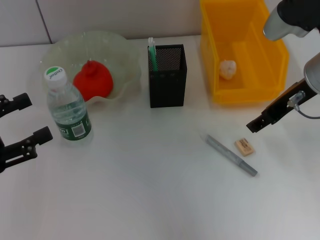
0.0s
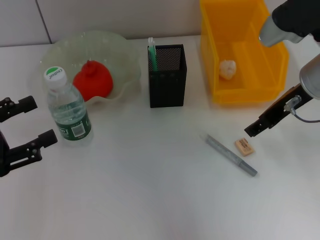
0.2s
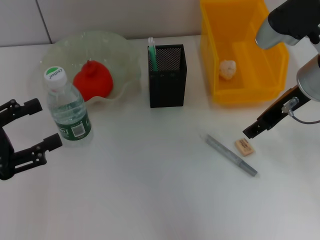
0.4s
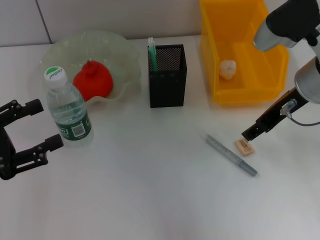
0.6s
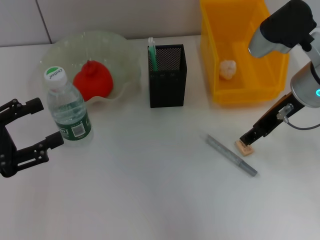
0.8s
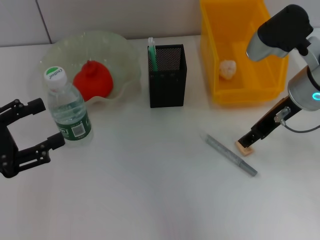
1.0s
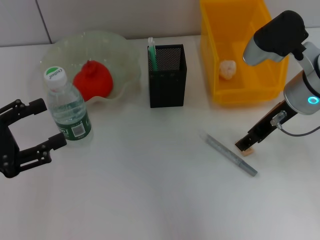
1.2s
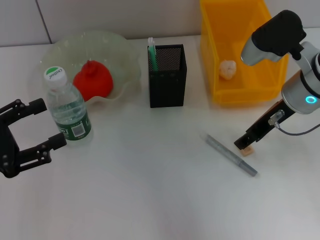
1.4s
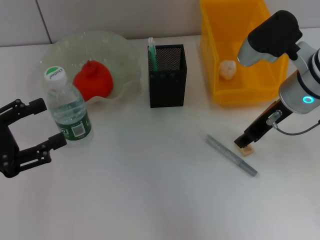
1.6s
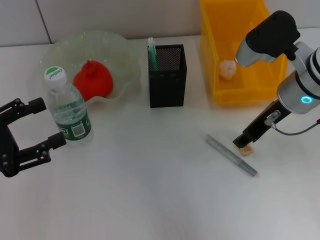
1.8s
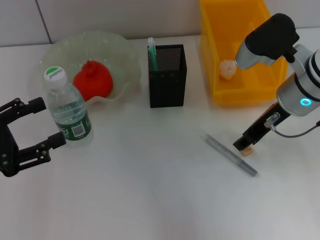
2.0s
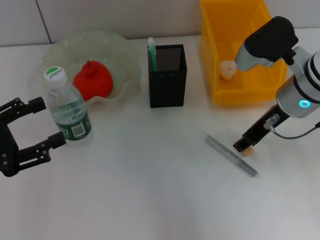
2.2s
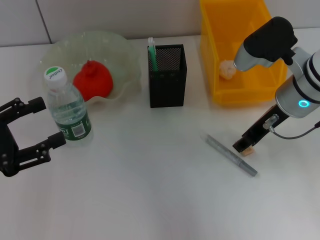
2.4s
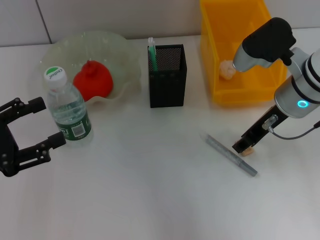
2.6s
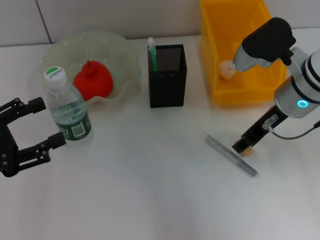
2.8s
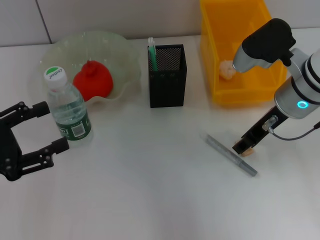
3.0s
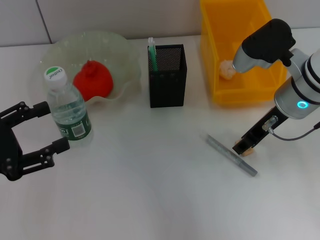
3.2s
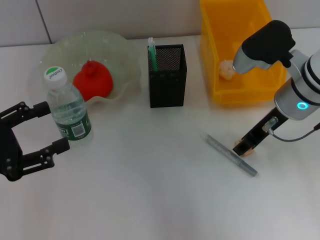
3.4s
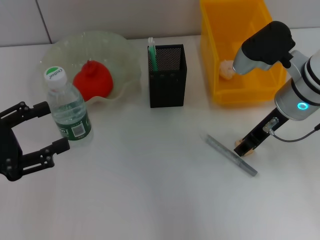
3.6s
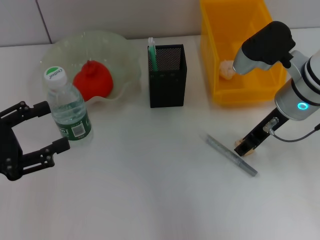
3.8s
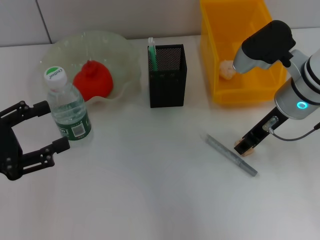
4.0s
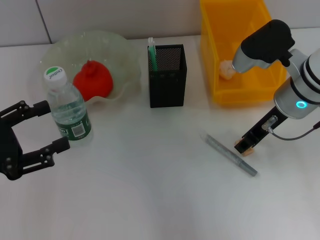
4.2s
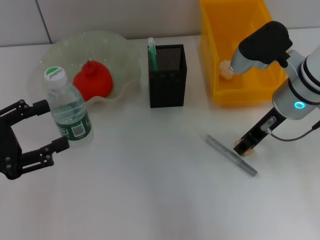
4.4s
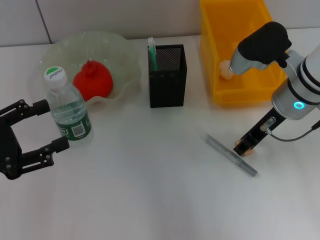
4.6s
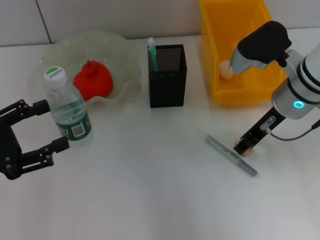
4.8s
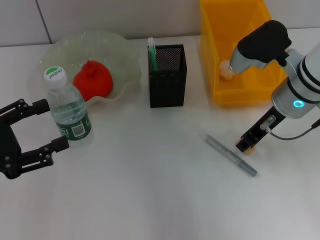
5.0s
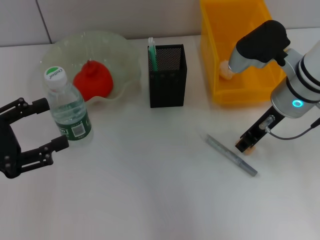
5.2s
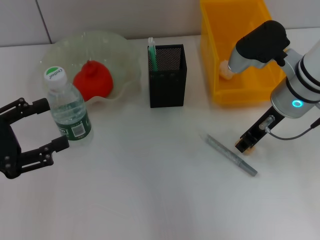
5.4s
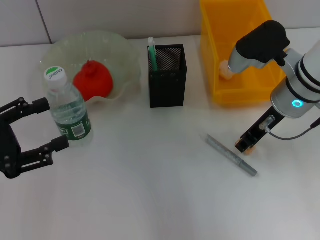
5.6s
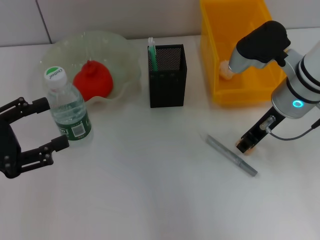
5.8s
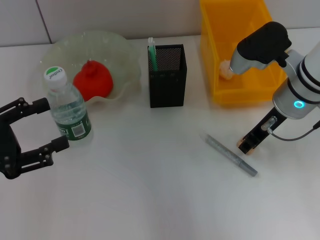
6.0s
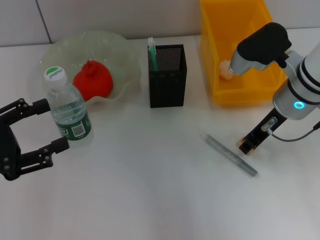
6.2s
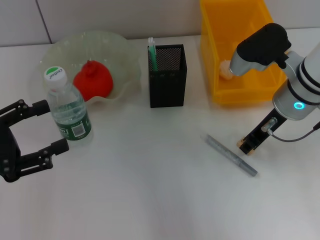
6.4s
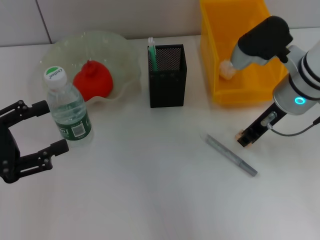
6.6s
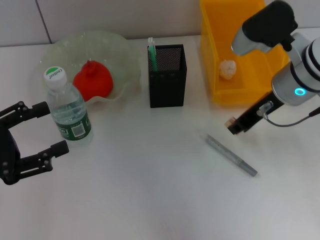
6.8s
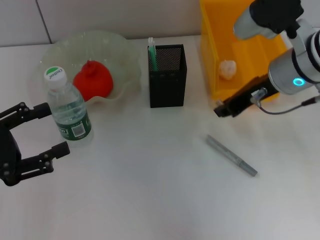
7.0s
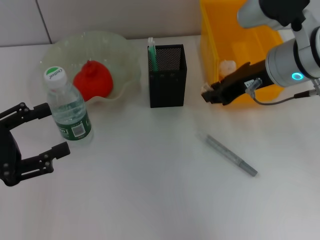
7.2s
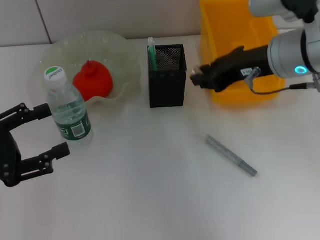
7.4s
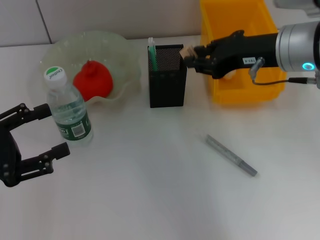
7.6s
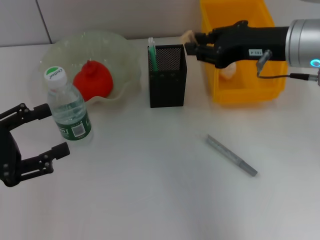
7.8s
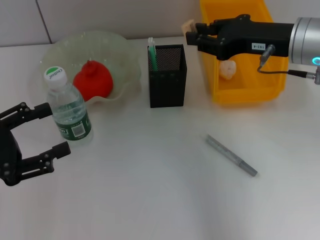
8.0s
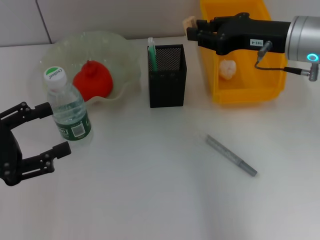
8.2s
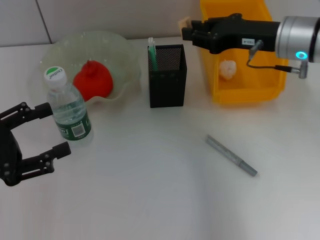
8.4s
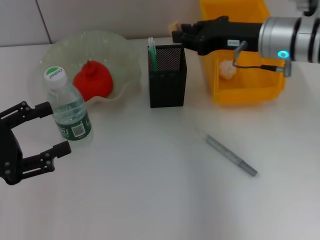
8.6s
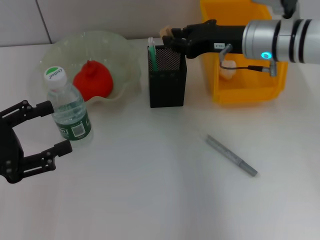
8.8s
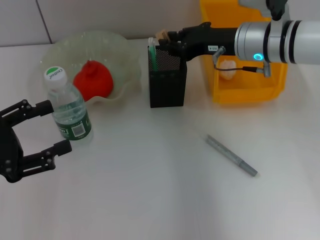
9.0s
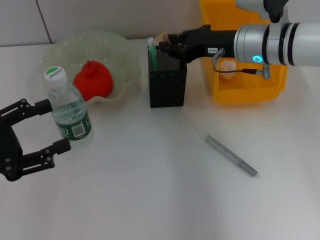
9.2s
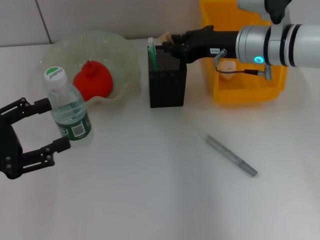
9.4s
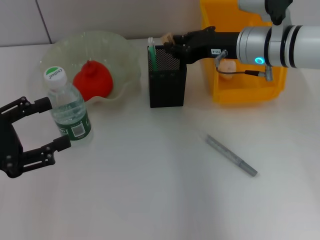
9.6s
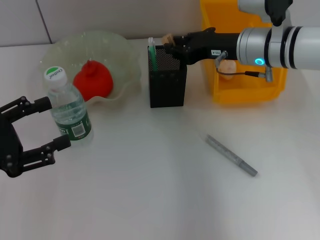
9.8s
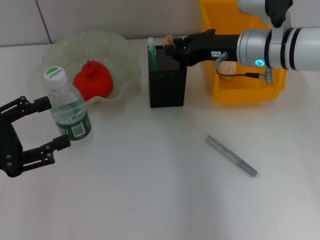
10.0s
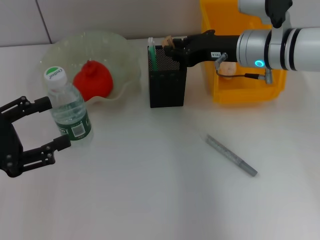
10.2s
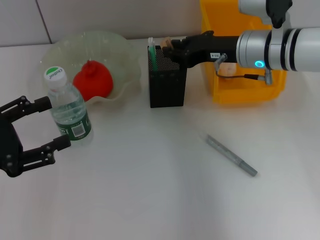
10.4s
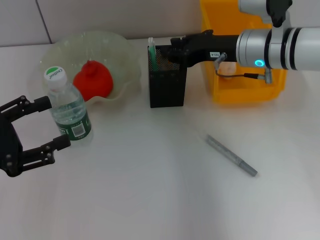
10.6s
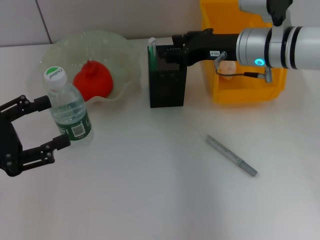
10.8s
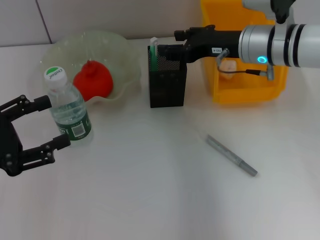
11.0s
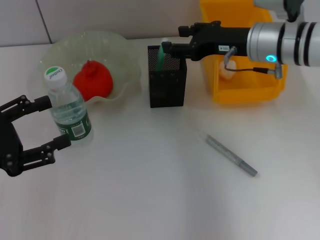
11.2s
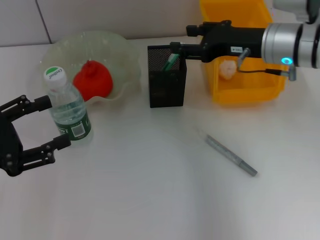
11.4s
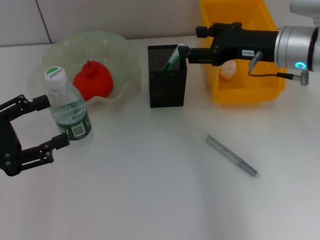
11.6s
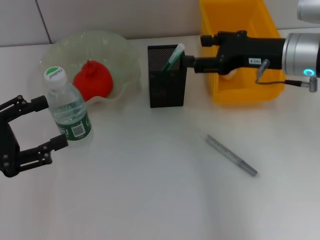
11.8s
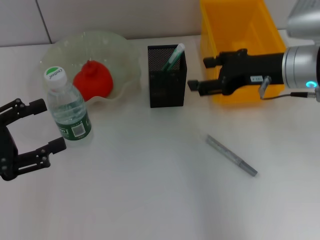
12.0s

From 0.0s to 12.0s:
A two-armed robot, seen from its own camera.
Step, from 0.0s to 6.2s: Grab the eraser with the right hand.
Step, from 6.4s to 10.8s: Put the eraser into the pen holder with the right hand.
From 0.0s to 1.6s: The grippers move only a little.
From 1.6s to 3.0s: Both grippers stay about where they are.
From 3.0s to 6.0s: Both grippers stay about where they are.
From 6.0s to 7.6s: The right gripper shifts roughly 5 cm upward.
From 7.6s to 9.0s: The right gripper is displaced forward and downward by roughly 10 cm.
From 9.0s to 10.4s: Both grippers stay put.
From 10.4s to 12.0s: The right gripper goes some 5 cm backward, and opens its fingers.

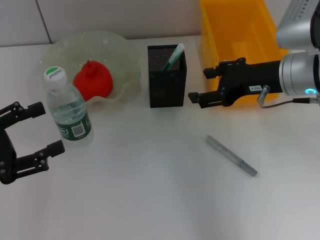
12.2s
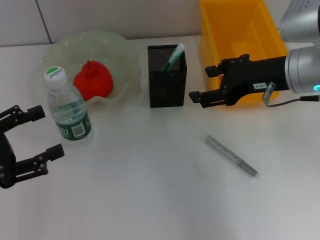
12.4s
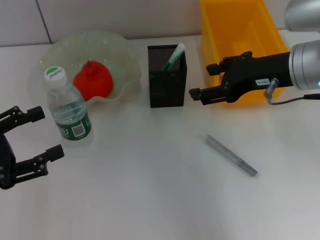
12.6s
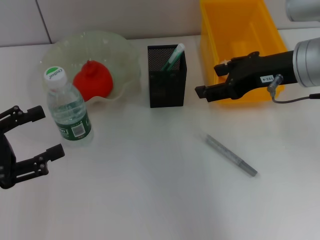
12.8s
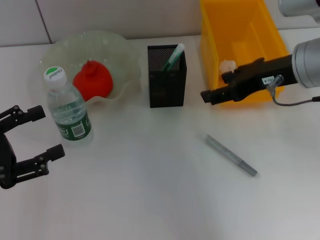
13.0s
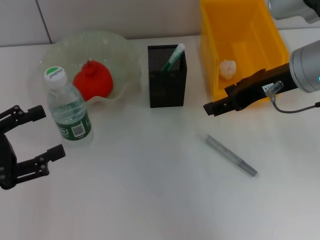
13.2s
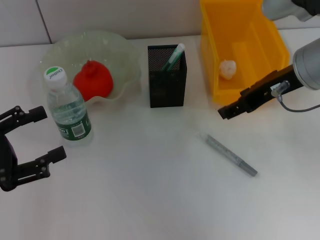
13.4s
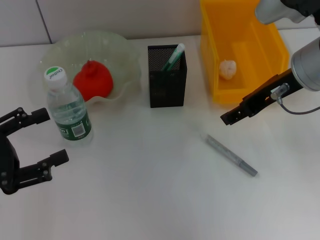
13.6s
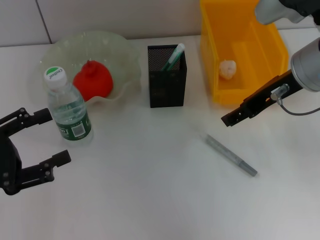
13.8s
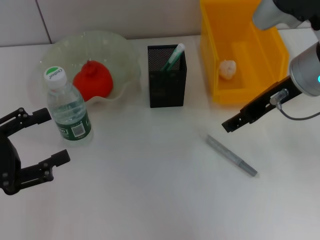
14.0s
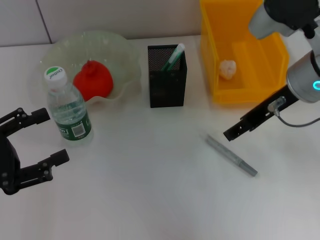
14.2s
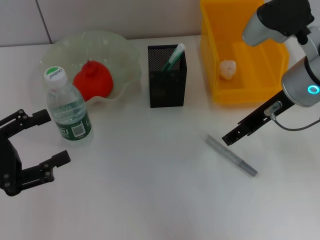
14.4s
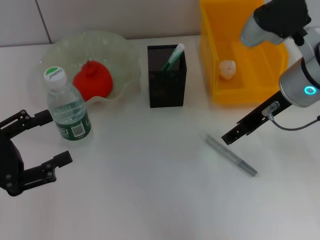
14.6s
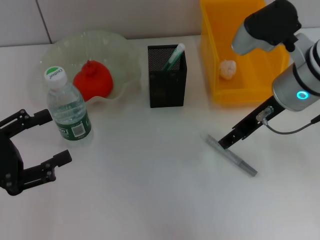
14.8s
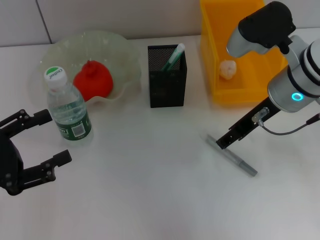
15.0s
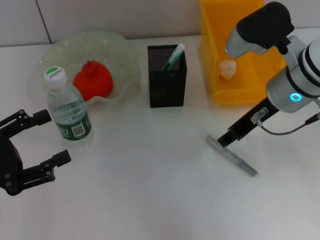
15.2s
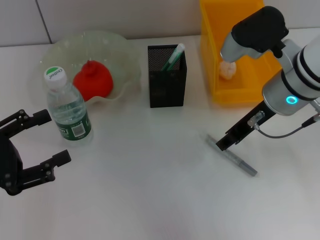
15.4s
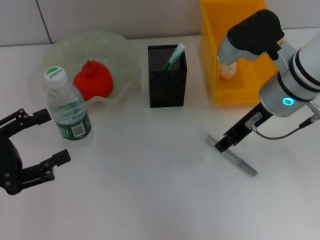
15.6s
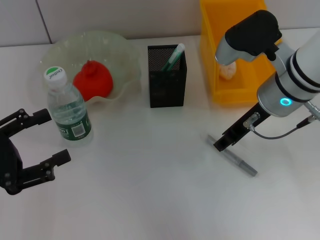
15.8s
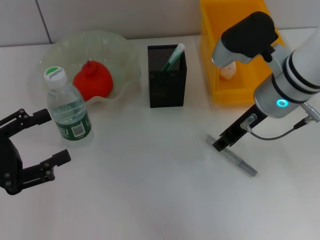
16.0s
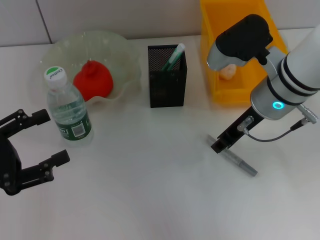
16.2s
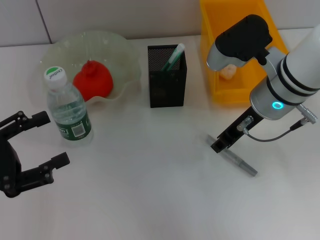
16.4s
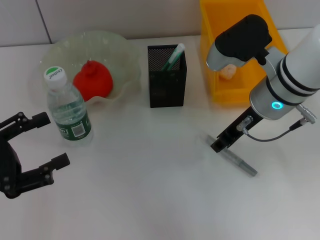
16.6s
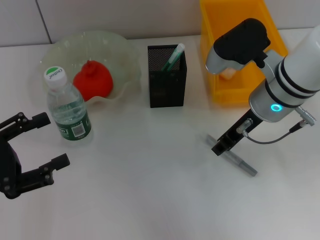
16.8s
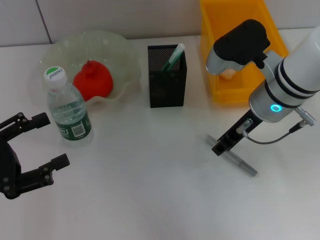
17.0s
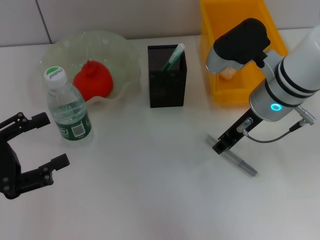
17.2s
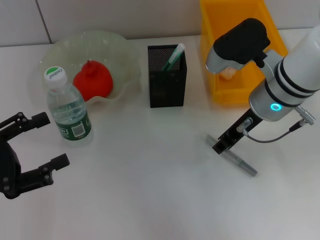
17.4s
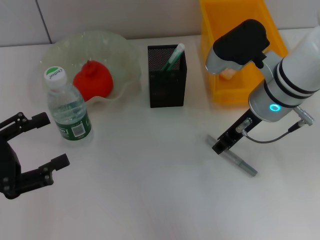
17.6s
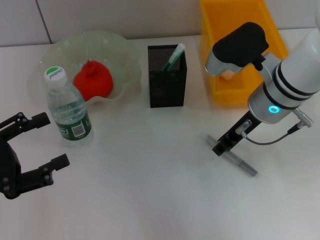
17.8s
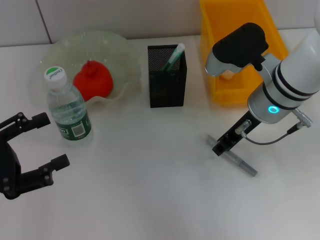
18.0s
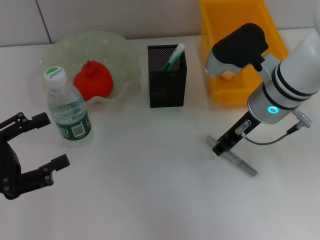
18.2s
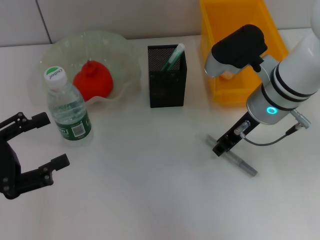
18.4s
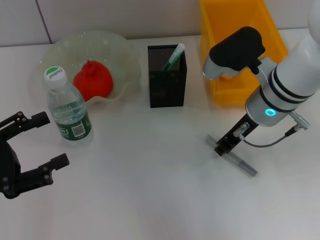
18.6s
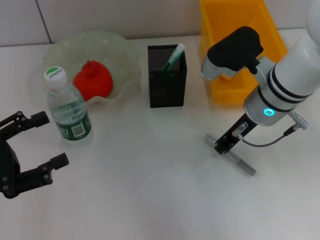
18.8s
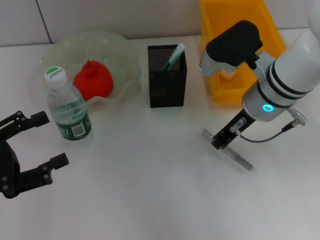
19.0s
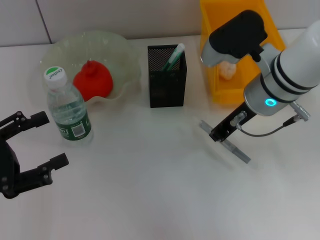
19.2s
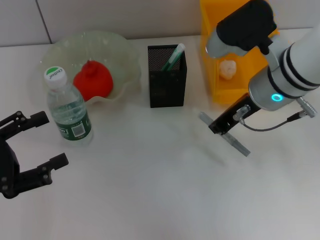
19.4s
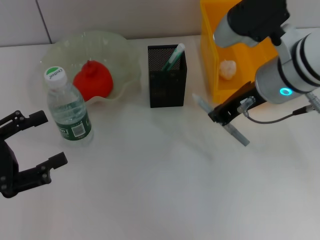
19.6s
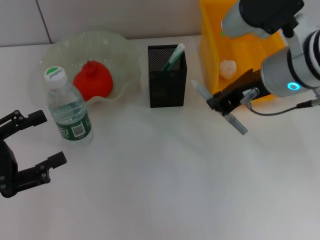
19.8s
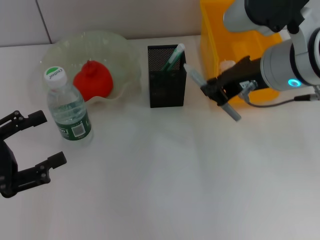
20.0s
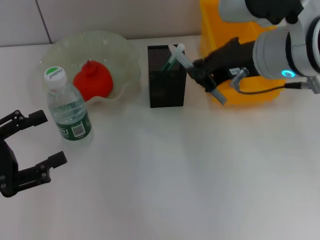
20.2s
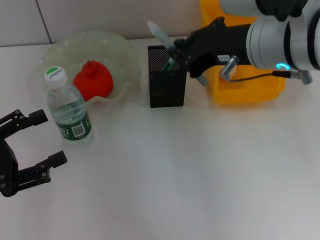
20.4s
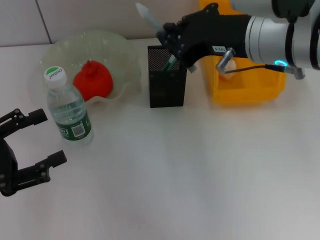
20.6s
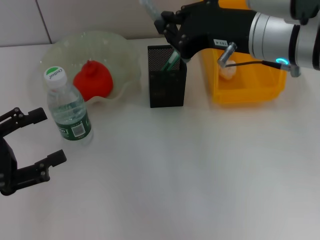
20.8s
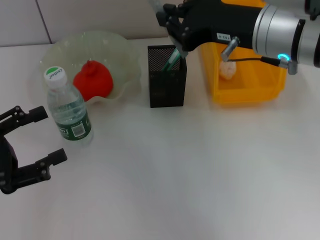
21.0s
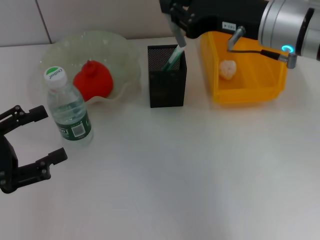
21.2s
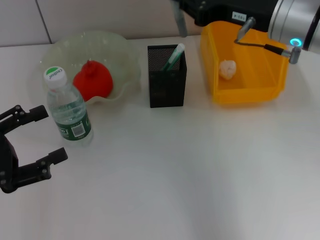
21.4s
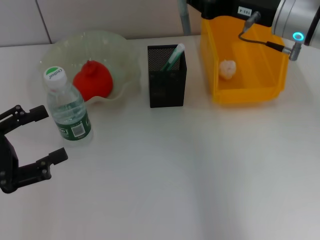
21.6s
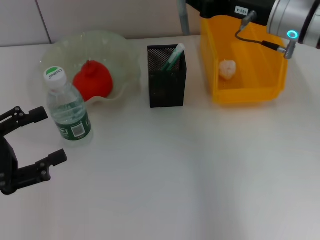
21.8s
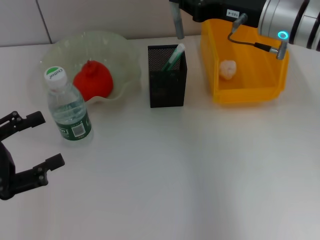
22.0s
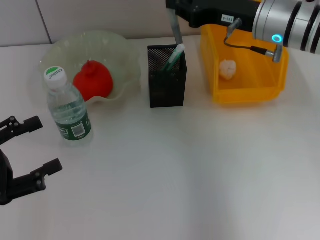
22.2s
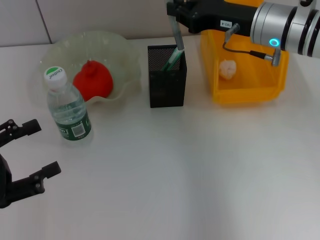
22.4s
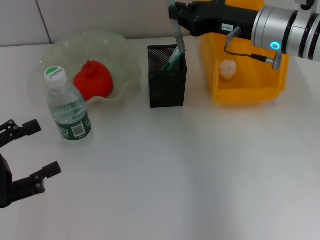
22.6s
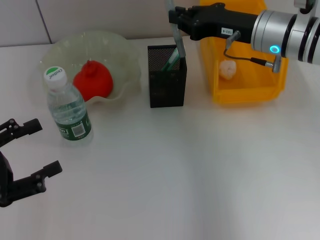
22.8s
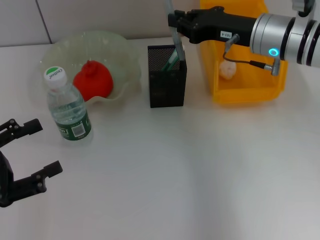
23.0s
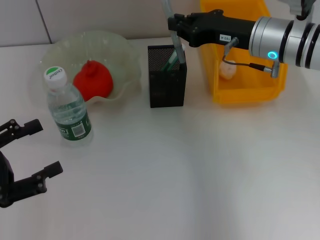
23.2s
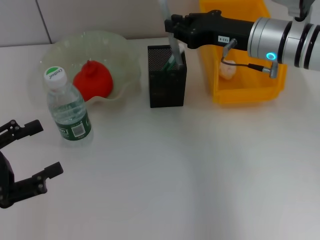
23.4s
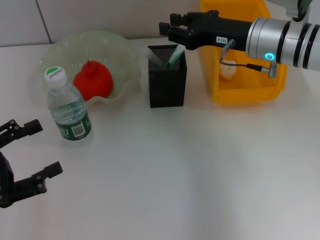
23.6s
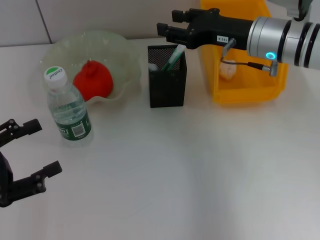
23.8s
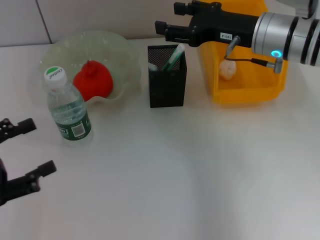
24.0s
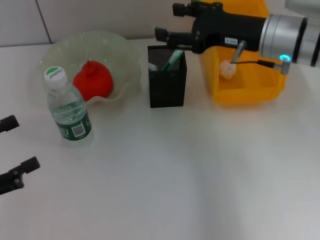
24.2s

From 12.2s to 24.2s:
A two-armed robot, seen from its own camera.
Step, from 12.2s to 18.6s: Grab the gray glue with the right hand.
Step, from 18.8s to 24.0s: Place the gray glue into the pen holder with the right hand.
From 12.2s to 13.8s: The right gripper moves roughly 5 cm.
From 13.8s to 15.2s: There are only small adjustments of the grippers.
From 15.2s to 16.6s: The right gripper closes its fingers.
From 16.6s to 18.2s: The grippers move only a little.
From 18.2s to 19.8s: The right gripper moves upward, roughly 5 cm, and closes up.
From 21.2s to 22.6s: The right gripper travels forward and downward by some 10 cm.
From 22.6s to 24.2s: The right gripper opens up.
